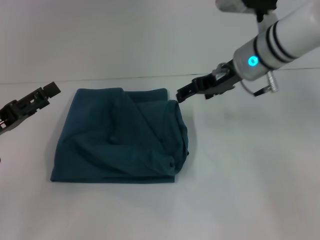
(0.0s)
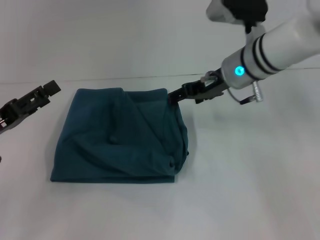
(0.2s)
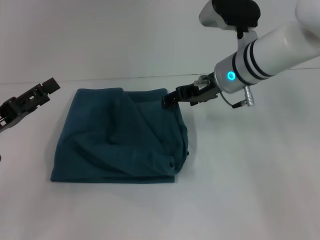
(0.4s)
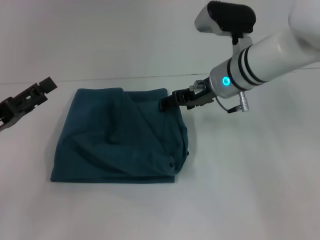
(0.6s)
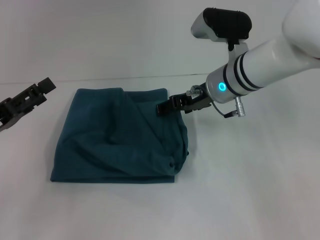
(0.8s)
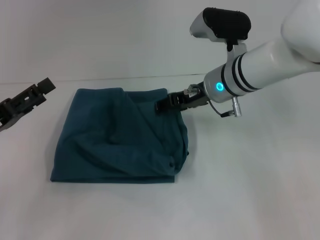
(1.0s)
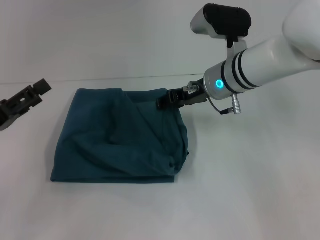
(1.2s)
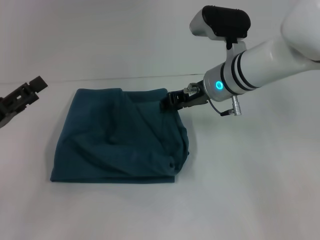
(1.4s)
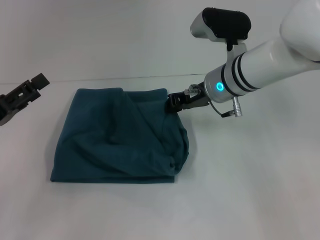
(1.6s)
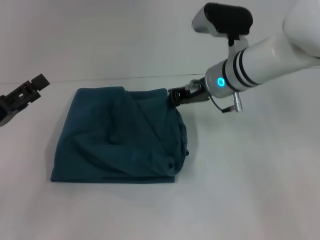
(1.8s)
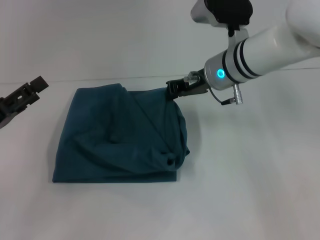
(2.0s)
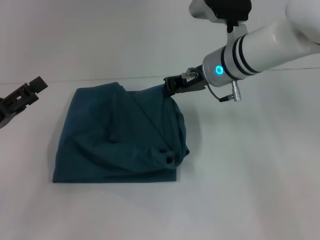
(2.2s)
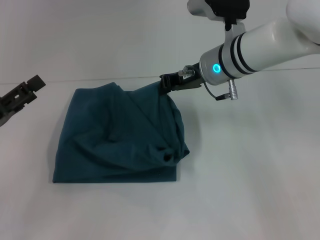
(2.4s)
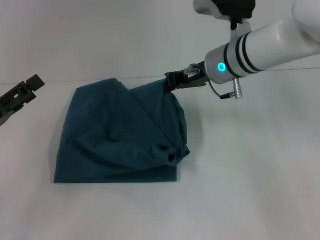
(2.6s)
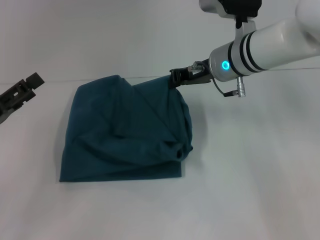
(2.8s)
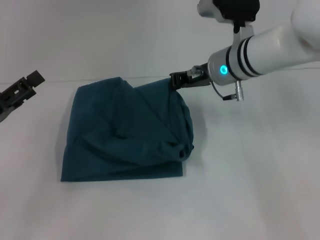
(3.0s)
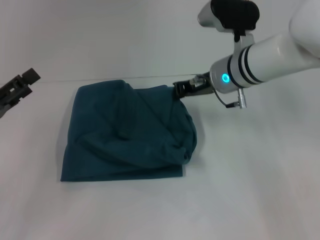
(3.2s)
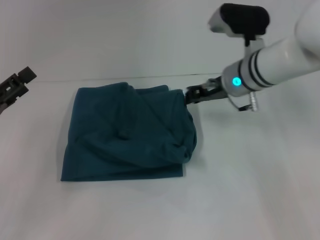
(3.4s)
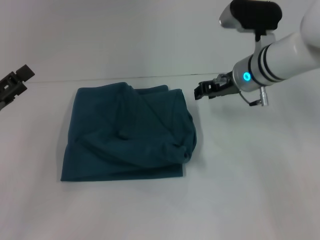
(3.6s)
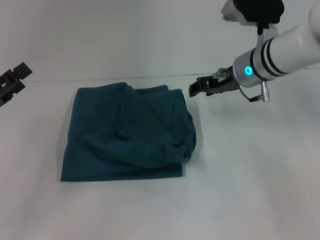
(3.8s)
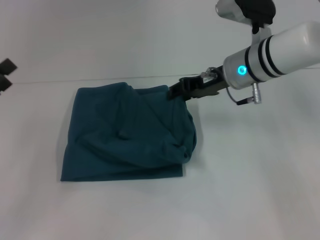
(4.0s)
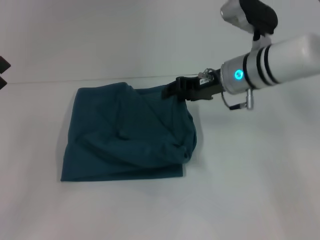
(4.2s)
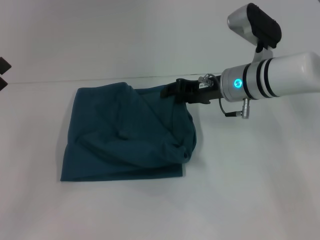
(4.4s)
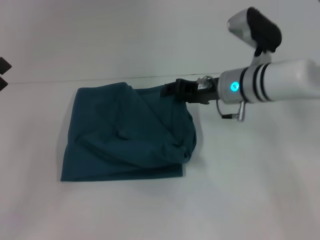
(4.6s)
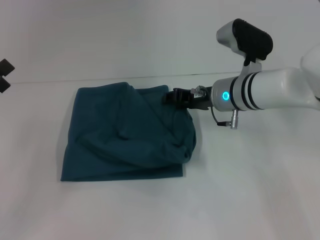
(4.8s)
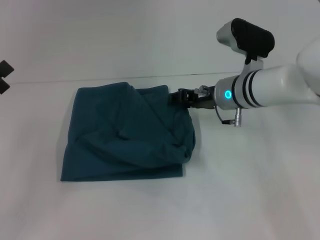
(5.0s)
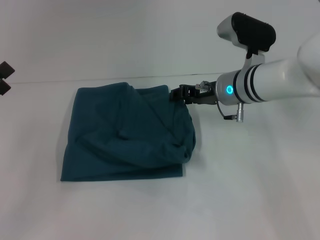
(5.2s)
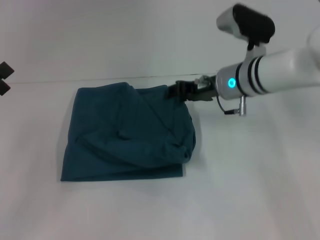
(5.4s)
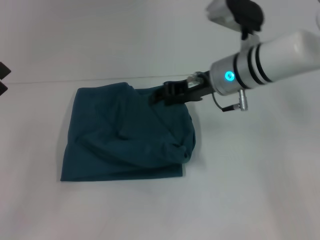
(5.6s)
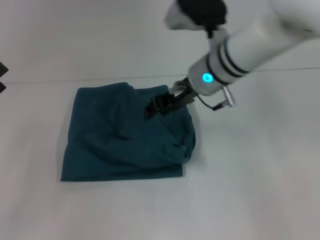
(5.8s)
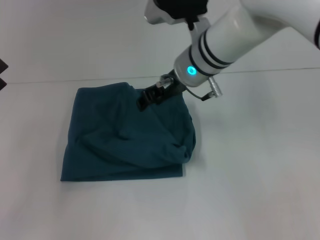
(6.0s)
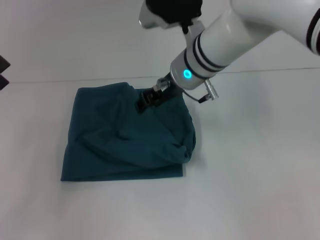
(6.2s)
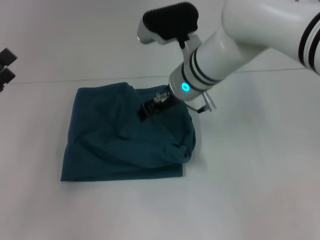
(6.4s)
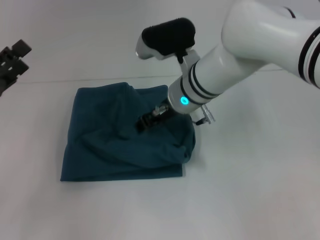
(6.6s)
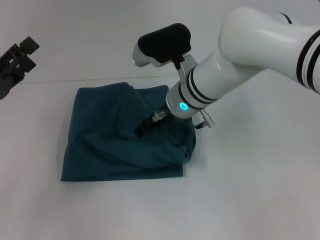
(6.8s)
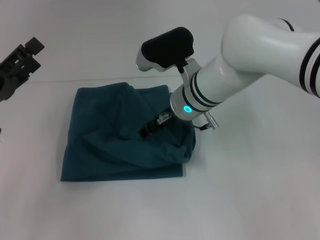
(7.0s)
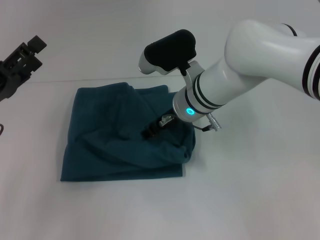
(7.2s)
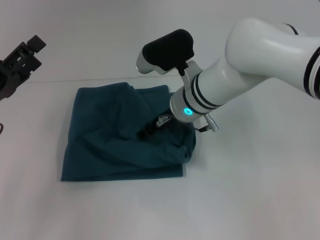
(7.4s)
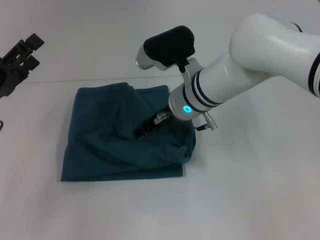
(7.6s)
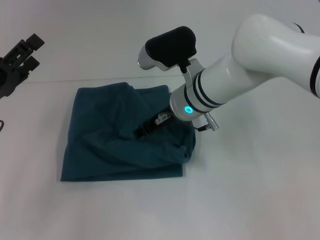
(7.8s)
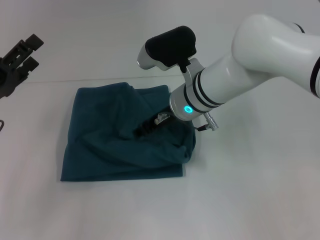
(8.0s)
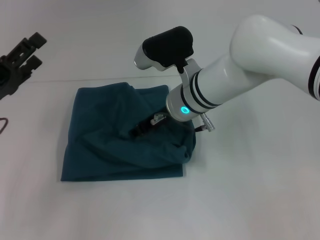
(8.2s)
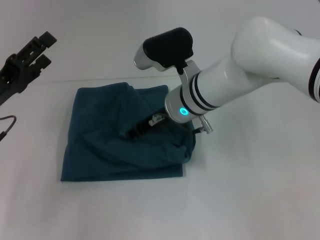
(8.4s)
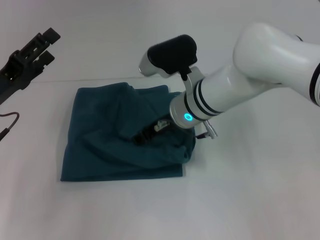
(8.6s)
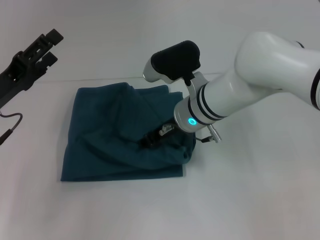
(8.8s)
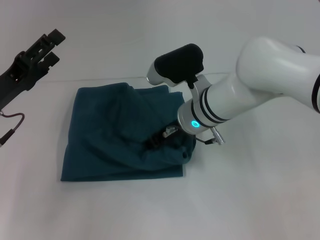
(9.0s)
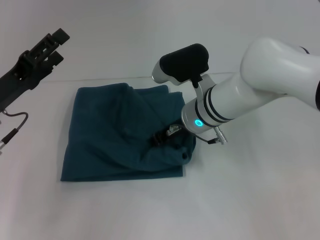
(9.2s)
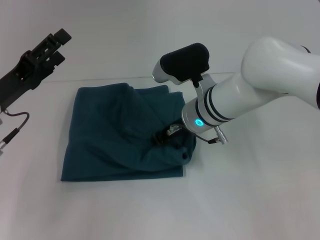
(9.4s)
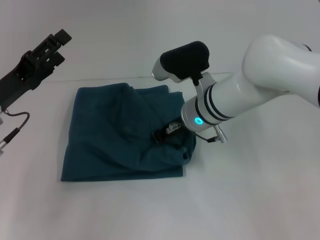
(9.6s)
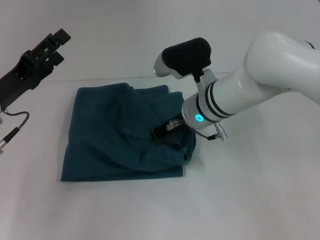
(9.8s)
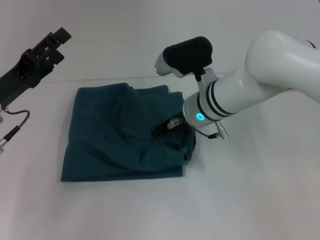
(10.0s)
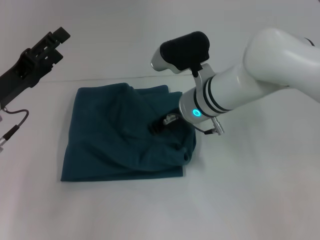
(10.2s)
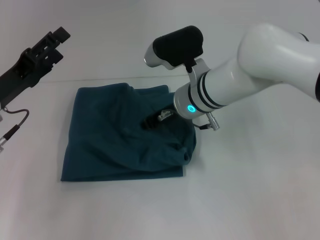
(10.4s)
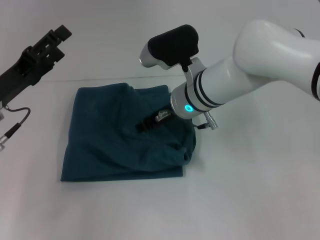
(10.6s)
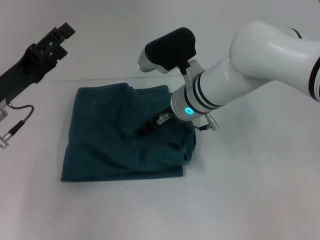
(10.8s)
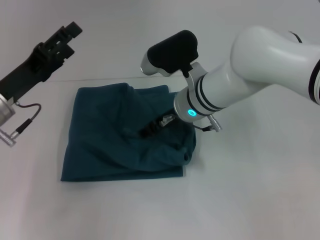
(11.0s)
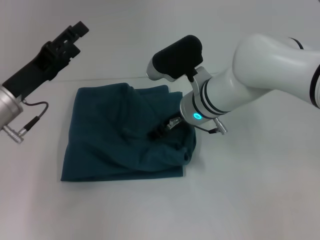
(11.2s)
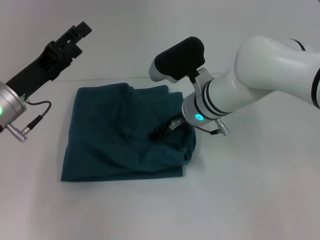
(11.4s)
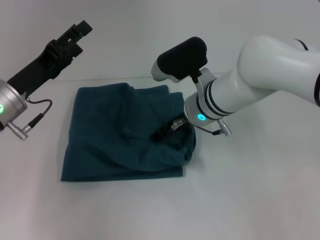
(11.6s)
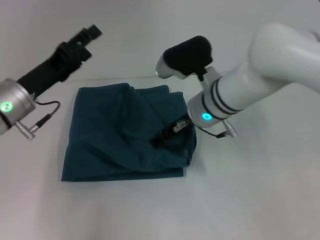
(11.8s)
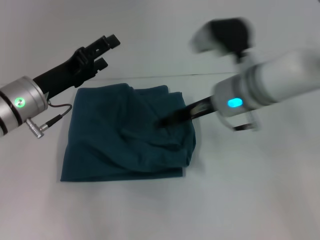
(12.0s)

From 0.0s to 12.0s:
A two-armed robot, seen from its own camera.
From 0.0s to 1.6s: The right gripper changes place by about 5 cm, and closes.
From 1.6s to 3.0s: The right gripper closes up.
From 3.0s to 4.4s: The right gripper opens its fingers.
From 4.4s to 6.0s: The right gripper is displaced to the left and upward by about 10 cm.
From 6.0s to 7.6s: The left gripper ends up about 5 cm from where it was. The right gripper shifts approximately 5 cm downward.
From 7.6s to 9.0s: The grippers stay close to where they were, moving slightly.
From 9.0s to 10.4s: The right gripper closes its fingers.
From 10.4s to 12.0s: The grippers both shift to the right by roughly 5 cm. The right gripper opens.

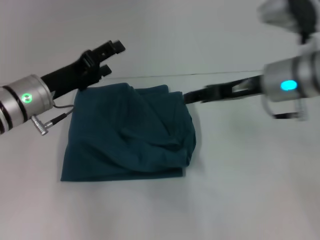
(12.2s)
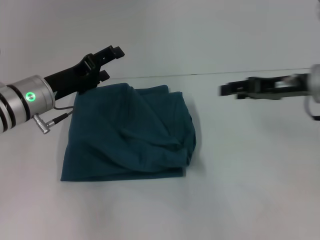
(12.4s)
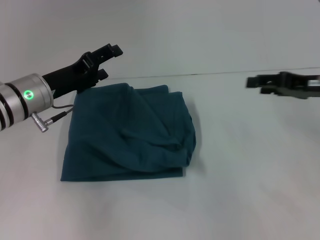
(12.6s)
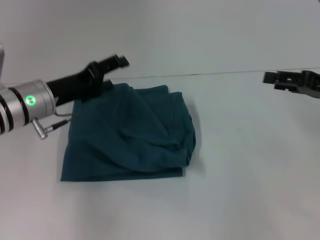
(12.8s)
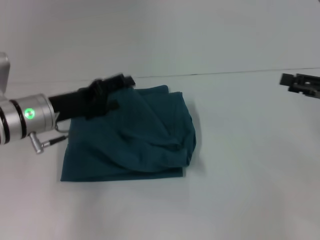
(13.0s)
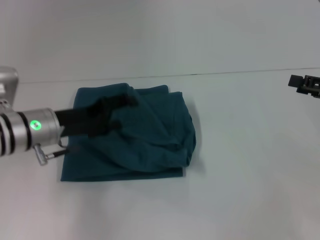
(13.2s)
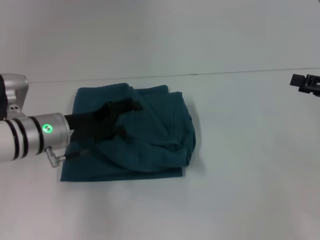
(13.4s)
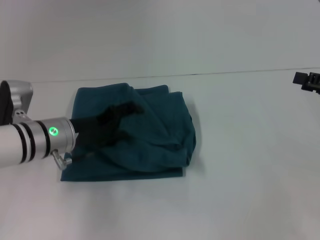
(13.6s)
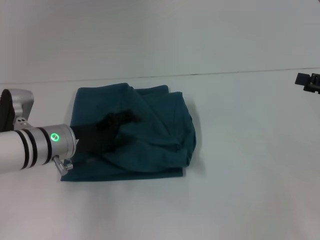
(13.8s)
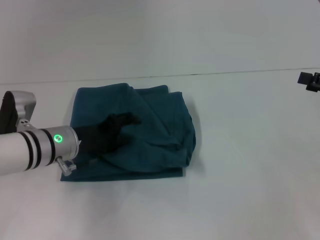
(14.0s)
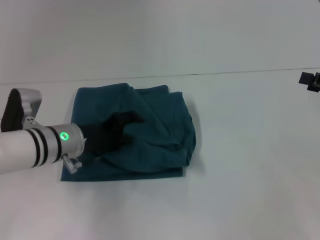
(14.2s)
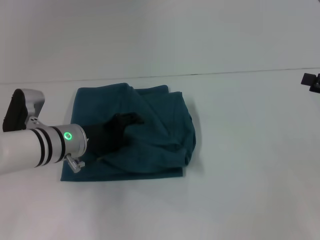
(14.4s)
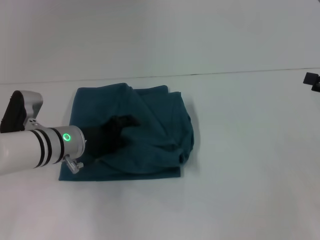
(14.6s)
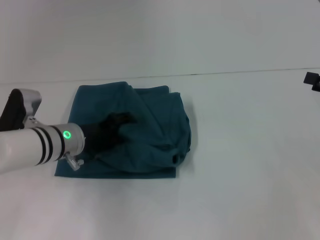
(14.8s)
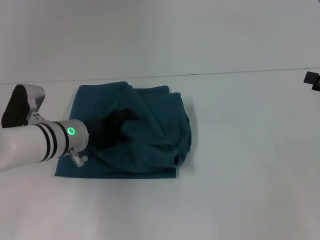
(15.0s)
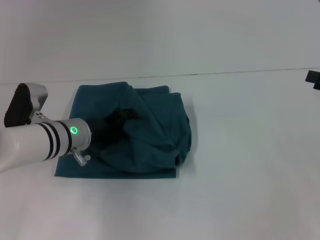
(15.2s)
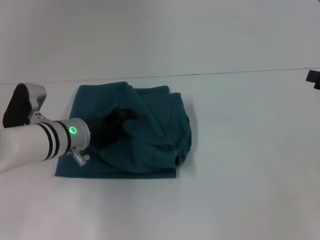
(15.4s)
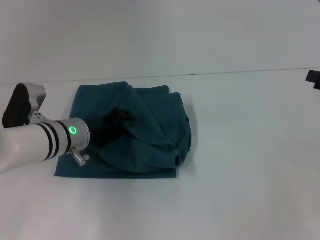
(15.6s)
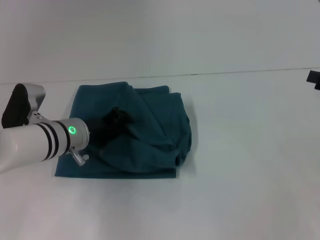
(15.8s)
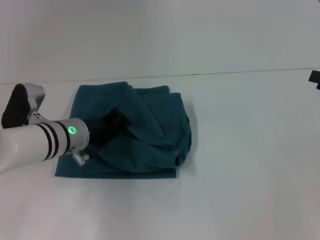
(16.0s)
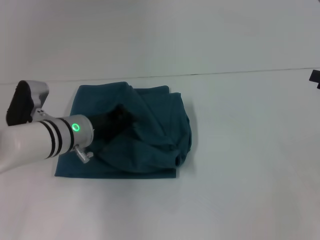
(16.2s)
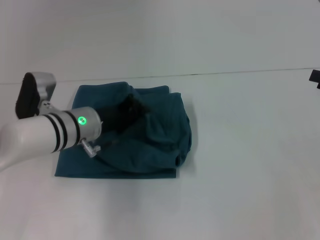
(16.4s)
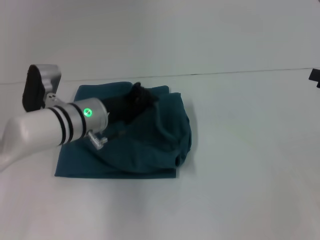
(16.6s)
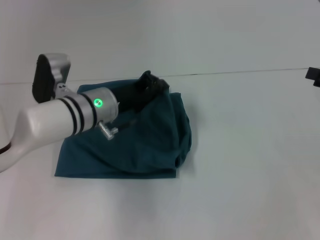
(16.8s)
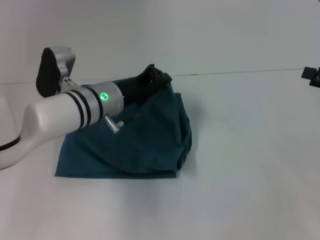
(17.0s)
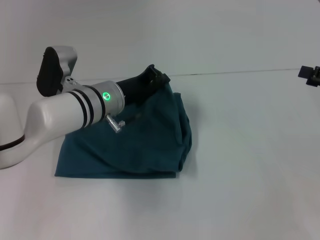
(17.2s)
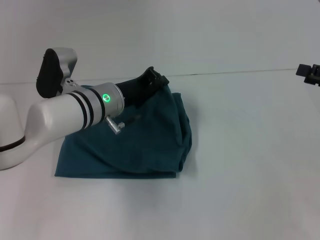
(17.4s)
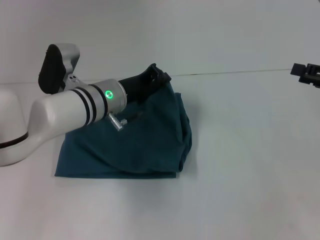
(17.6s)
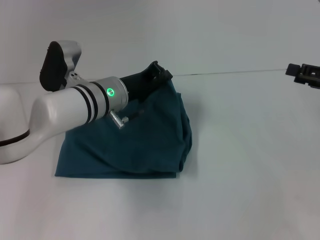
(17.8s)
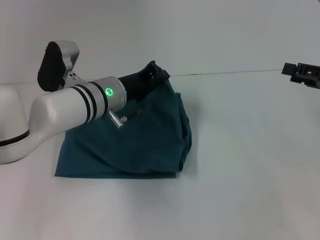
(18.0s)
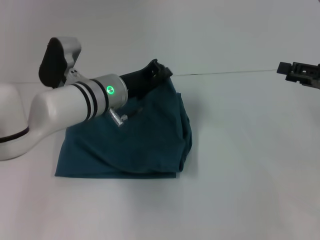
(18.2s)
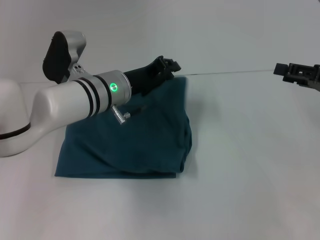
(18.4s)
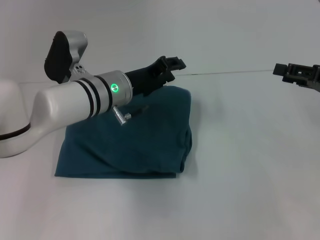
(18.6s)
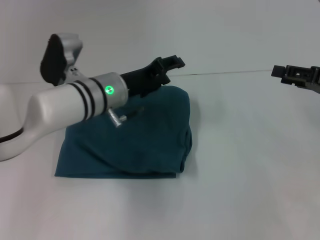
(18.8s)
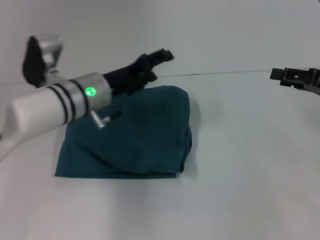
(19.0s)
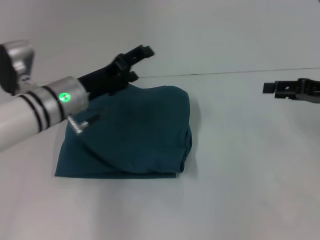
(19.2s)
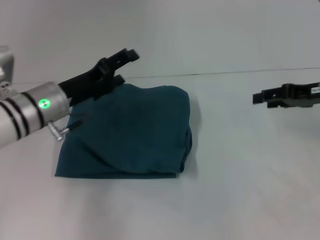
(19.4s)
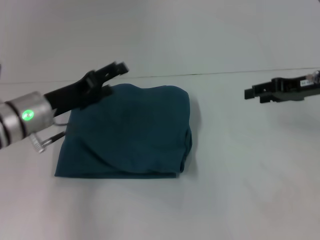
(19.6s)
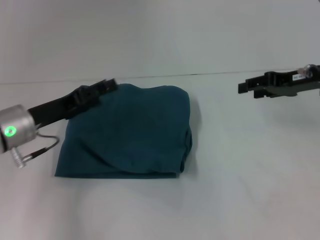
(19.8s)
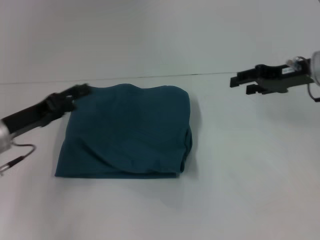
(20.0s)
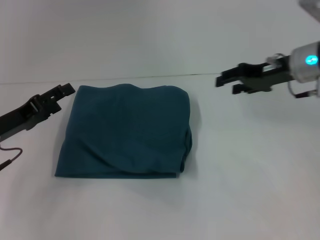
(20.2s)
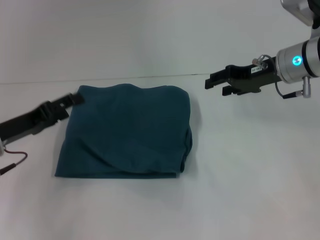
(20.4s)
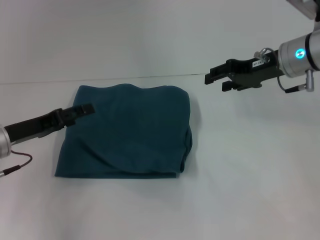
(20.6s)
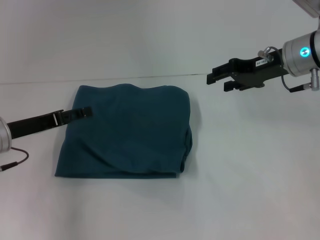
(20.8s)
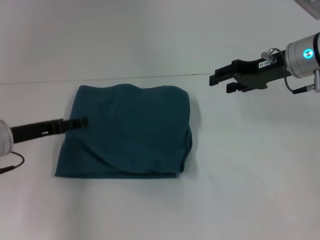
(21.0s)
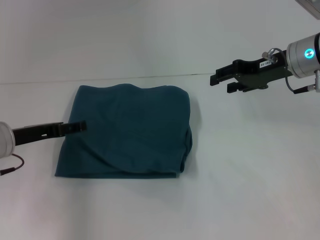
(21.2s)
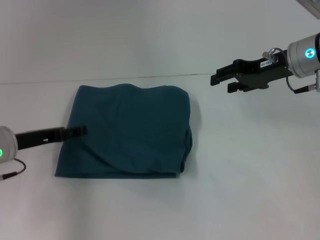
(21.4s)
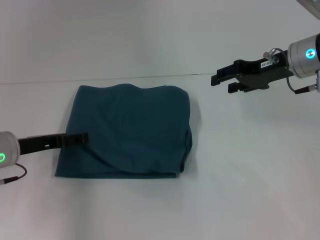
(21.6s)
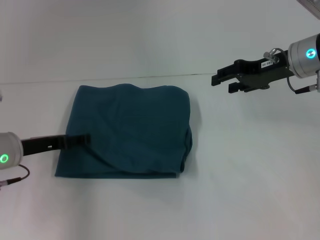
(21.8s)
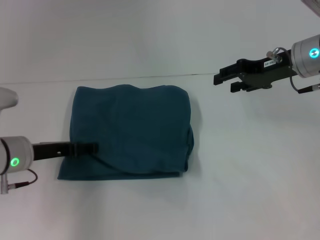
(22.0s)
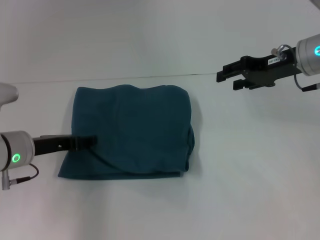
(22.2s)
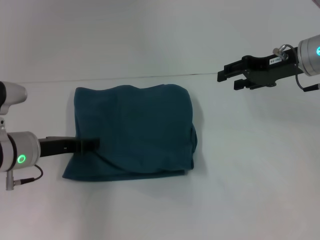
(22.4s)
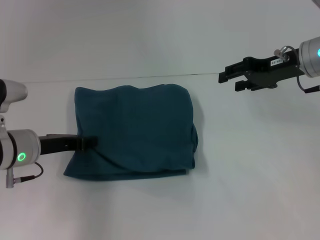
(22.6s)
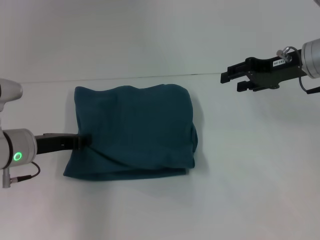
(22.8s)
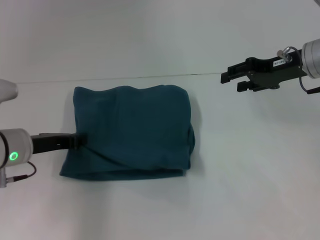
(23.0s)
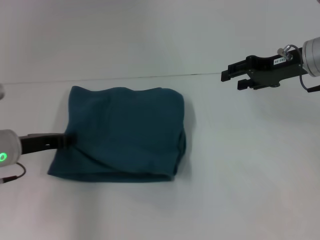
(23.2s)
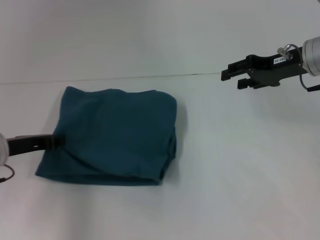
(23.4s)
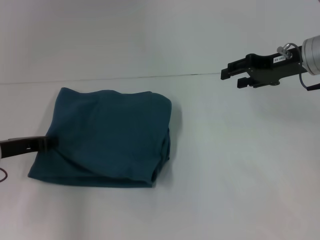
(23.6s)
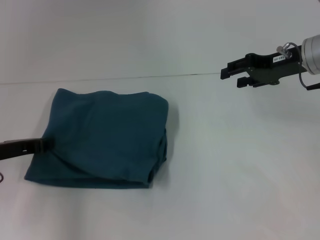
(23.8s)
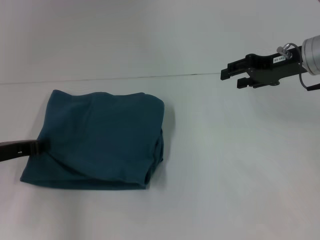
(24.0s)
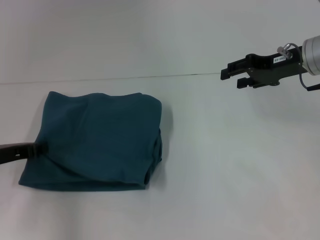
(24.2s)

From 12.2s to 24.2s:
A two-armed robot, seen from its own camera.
From 12.2s to 13.8s: The left gripper is displaced downward by roughly 5 cm. Meanwhile the right gripper goes roughly 20 cm to the right.
From 13.8s to 15.2s: The grippers move only a little.
From 15.2s to 16.6s: The left gripper closes up.
From 16.6s to 18.2s: The grippers move only a little.
From 18.2s to 19.8s: The right gripper goes roughly 10 cm forward and to the left, while the left gripper heads to the left and backward, covering about 15 cm, and opens up.
From 19.8s to 21.2s: The right gripper goes roughly 5 cm to the left.
From 21.2s to 22.6s: The left gripper closes its fingers.
From 22.6s to 24.2s: The left gripper travels to the left by about 5 cm, and closes.
